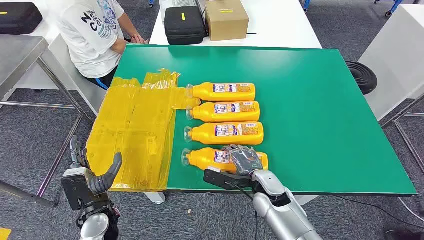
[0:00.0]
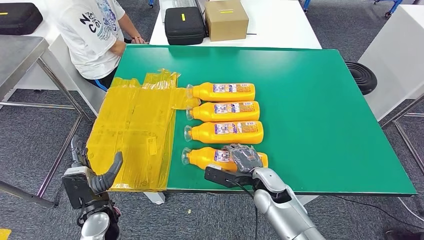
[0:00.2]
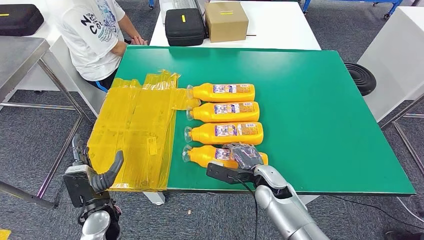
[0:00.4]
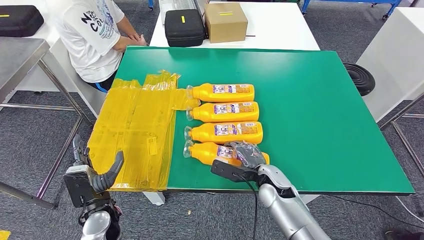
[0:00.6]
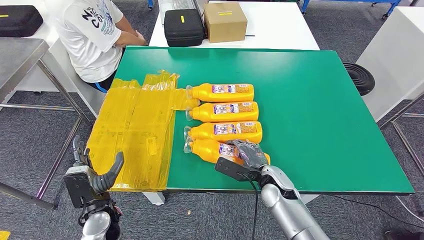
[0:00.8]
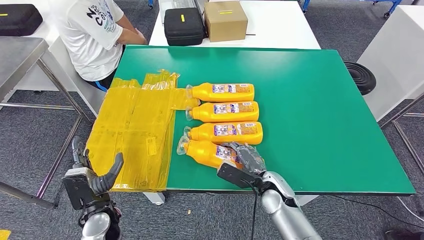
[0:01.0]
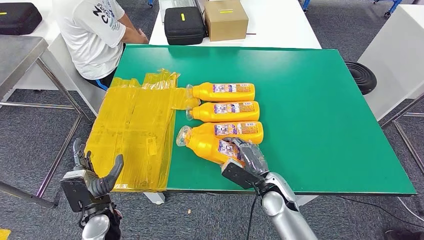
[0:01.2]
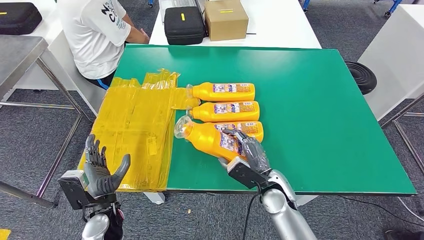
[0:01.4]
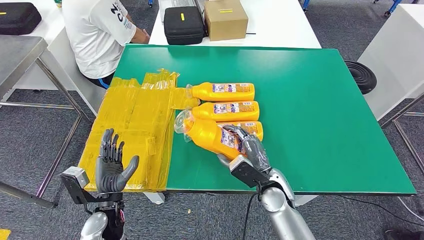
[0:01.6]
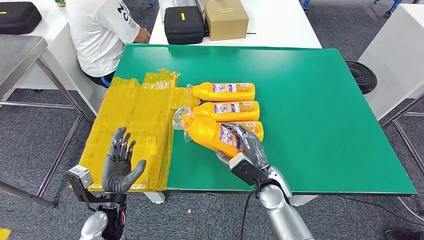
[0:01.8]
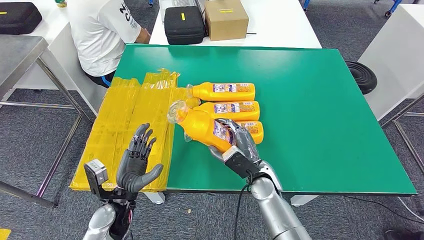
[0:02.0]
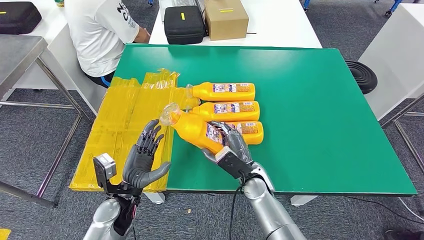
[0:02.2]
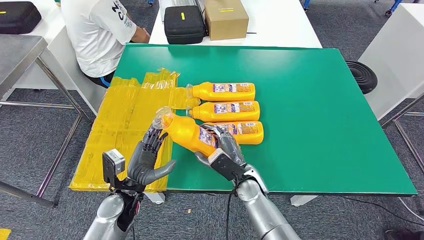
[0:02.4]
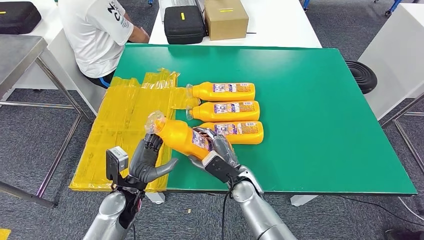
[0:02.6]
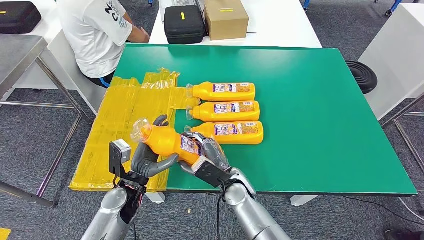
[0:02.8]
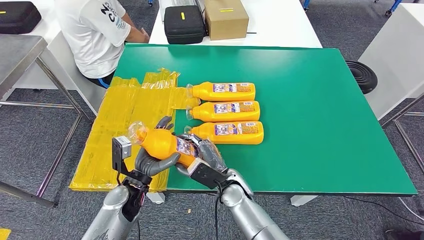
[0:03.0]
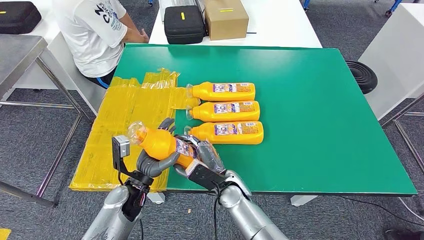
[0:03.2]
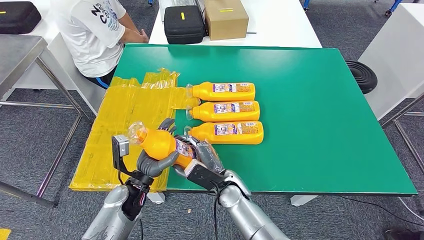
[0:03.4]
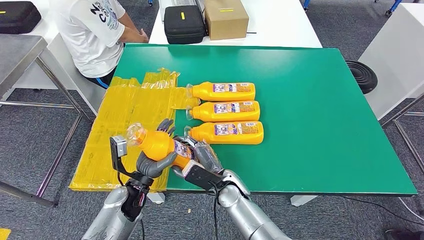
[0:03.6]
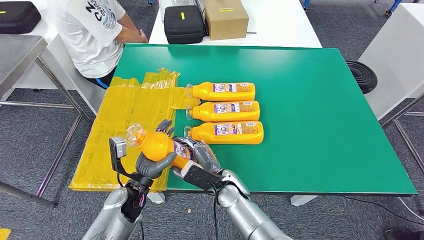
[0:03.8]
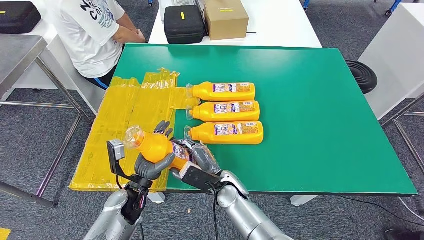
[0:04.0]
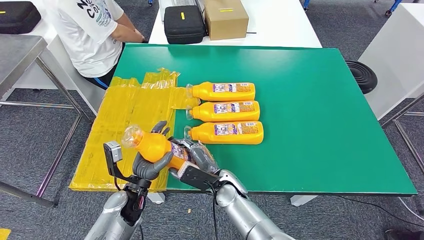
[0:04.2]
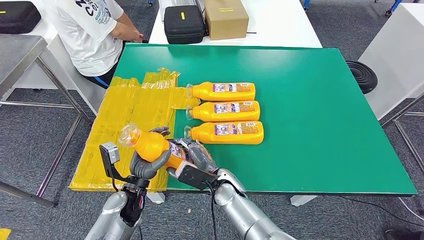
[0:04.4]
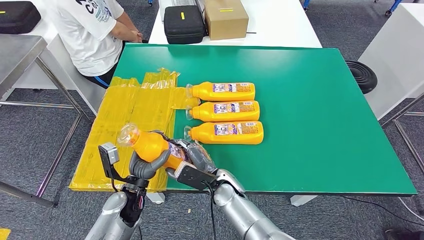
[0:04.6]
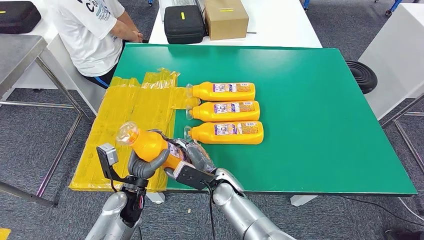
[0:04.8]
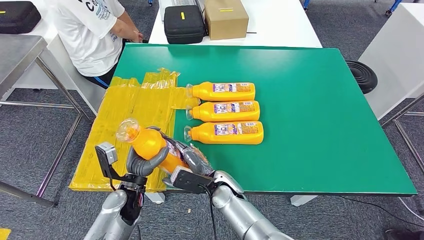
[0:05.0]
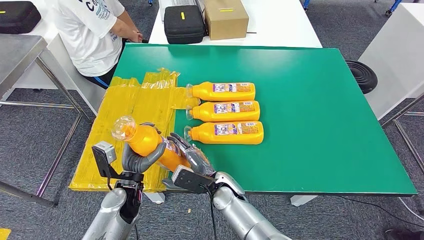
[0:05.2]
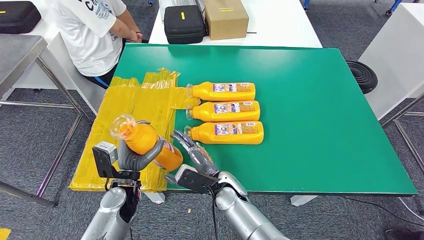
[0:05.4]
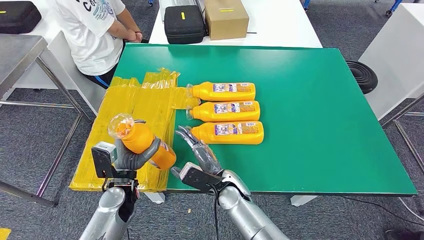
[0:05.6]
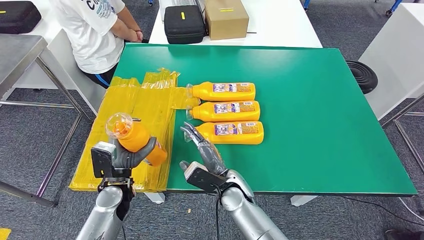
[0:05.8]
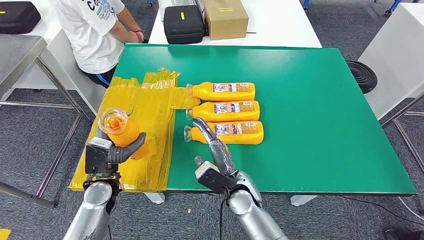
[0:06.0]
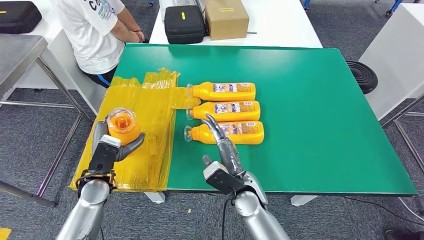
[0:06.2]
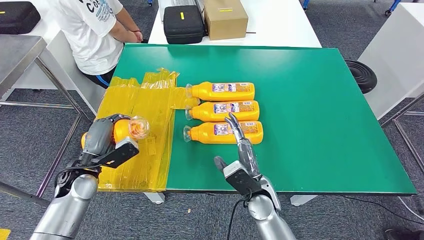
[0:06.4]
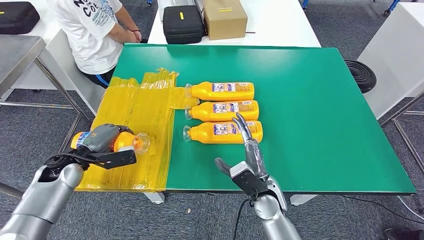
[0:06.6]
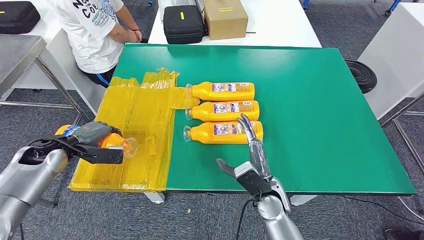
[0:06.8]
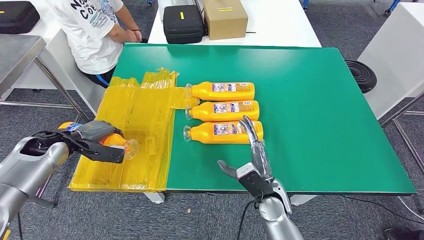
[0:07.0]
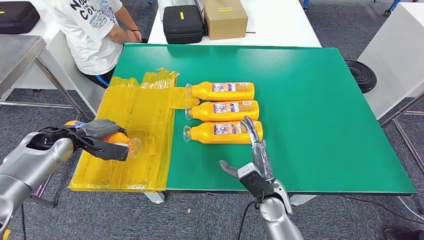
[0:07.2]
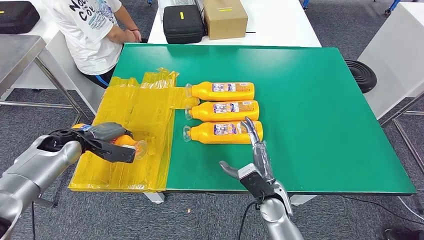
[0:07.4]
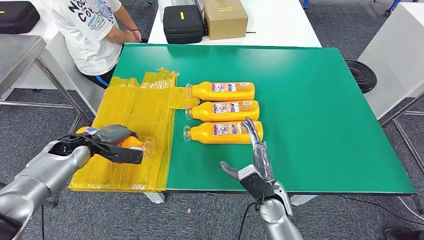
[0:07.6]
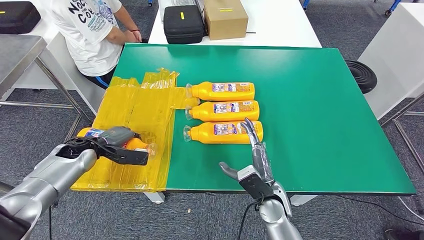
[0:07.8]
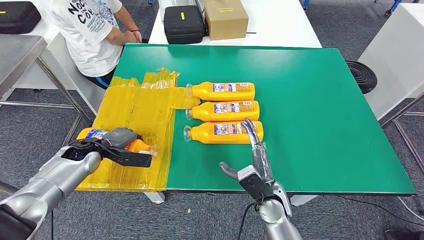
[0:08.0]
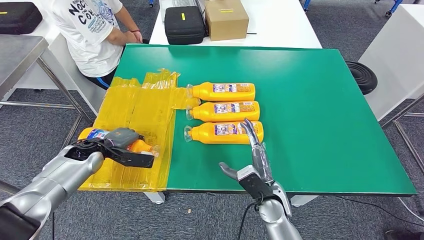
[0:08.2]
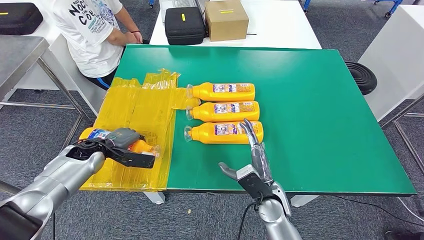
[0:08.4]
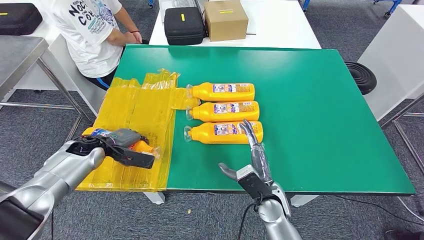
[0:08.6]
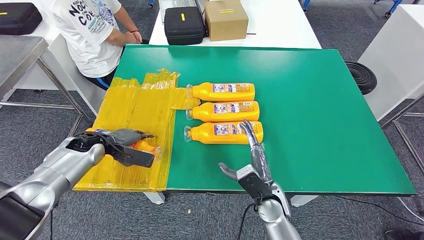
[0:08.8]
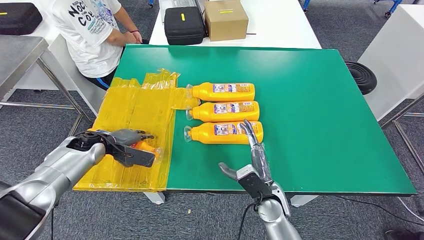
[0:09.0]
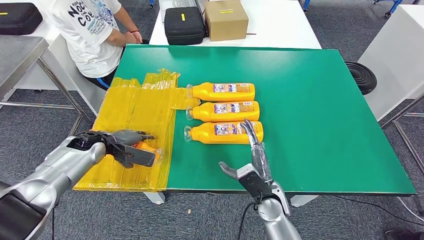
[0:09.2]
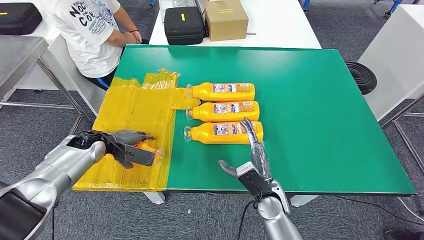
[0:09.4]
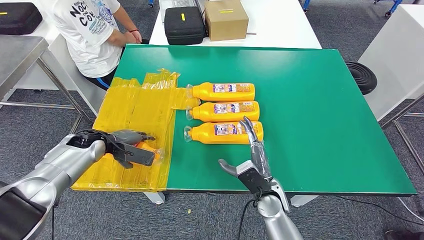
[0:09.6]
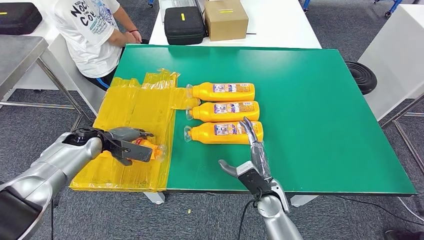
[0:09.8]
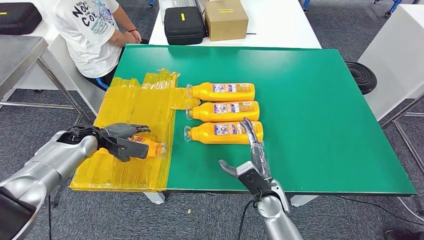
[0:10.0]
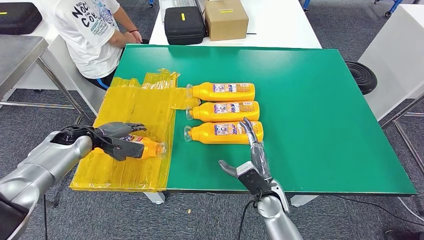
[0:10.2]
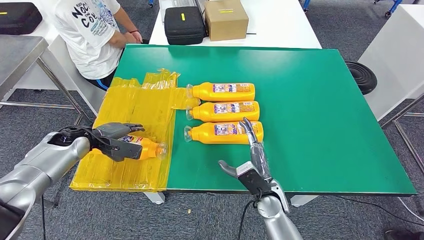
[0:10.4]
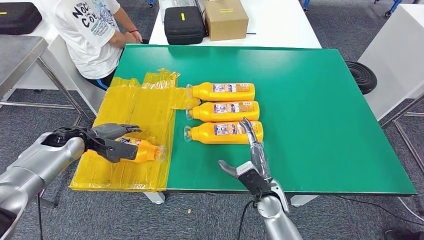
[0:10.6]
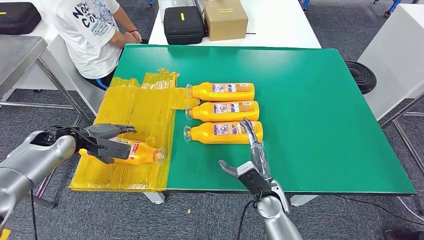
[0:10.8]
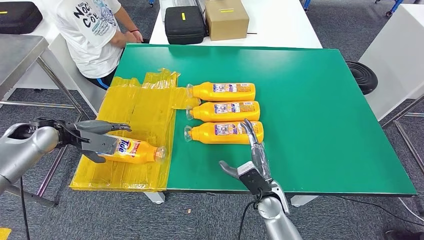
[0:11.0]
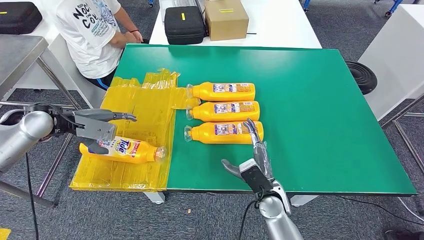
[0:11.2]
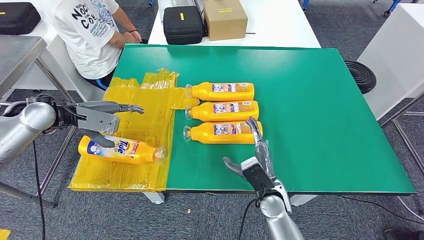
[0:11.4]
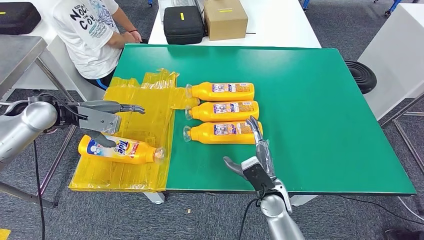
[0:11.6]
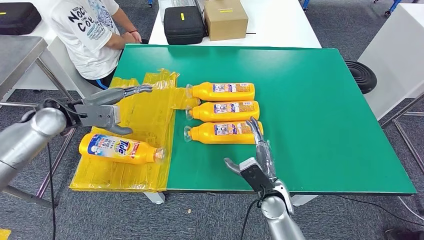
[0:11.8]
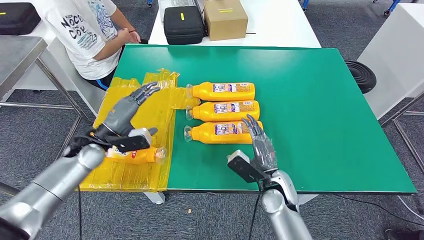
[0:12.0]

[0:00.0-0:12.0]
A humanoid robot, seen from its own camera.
Step, 0:00.0 to 0:03.0: Take the fast-moving consumer goods bottle from the table.
Step, 0:03.2 to 0:09.0: Flip the fast-moving consumer goods bottle to the front side.
0:01.6 to 0:03.0: The right hand is displaced to the left by roughly 10 cm; the left hand shifts roughly 5 cm forward.
0:03.0 to 0:04.4: The hands move only a little.
0:04.4 to 0:06.0: The left hand heads to the left, covering some 5 cm.
0:06.0 to 0:07.6: The right hand travels to the right by some 10 cm. The left hand travels to the left and forward by some 15 cm.
0:07.6 to 0:10.4: The hands stay close to where they were, moving slightly.
0:10.4 to 0:12.0: The left hand goes approximately 5 cm to the right, and goes upward and returns, approximately 10 cm each way.

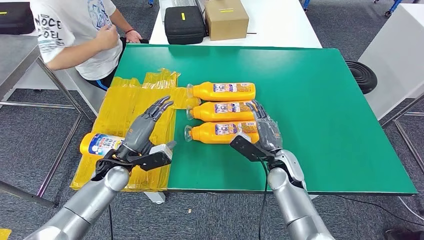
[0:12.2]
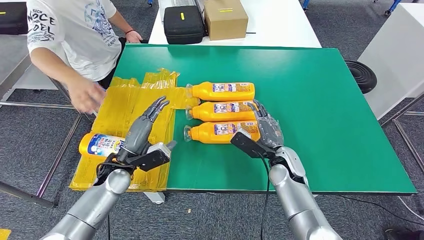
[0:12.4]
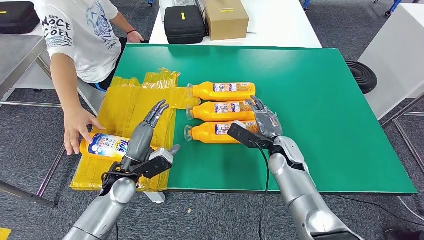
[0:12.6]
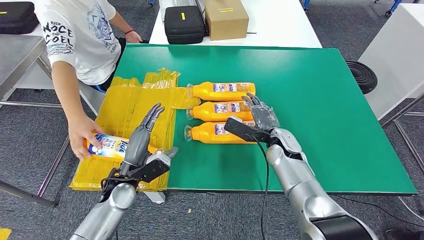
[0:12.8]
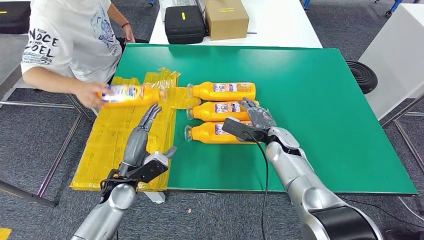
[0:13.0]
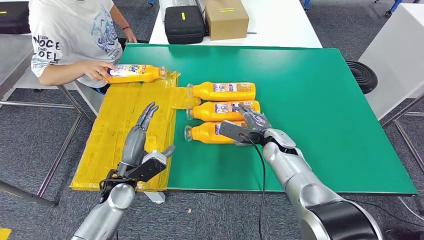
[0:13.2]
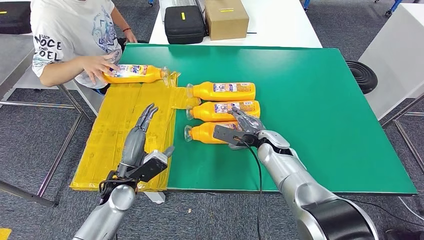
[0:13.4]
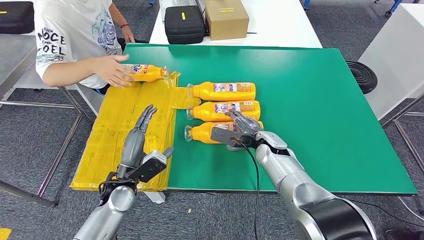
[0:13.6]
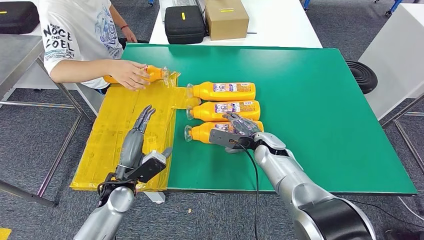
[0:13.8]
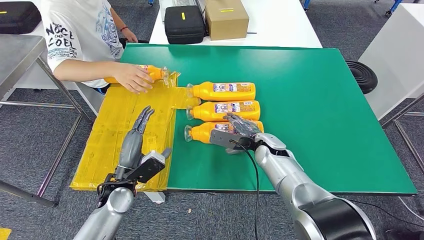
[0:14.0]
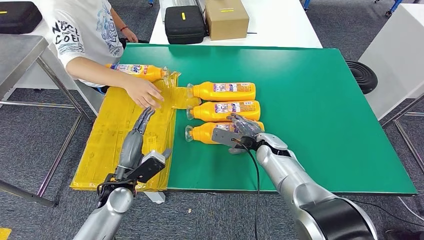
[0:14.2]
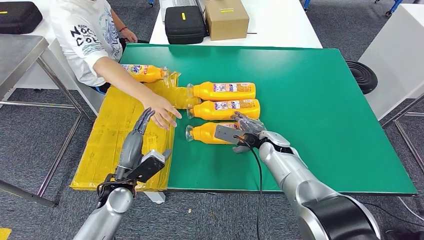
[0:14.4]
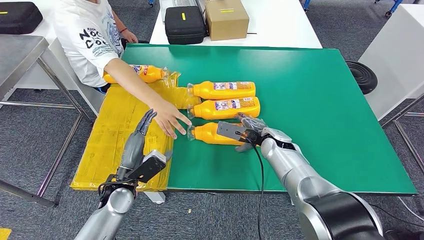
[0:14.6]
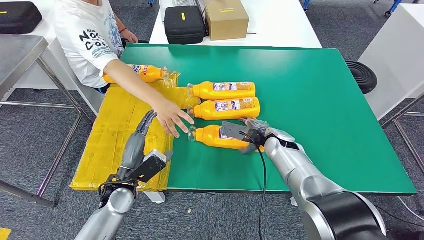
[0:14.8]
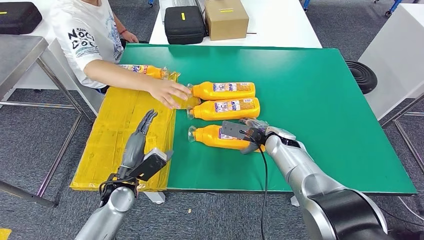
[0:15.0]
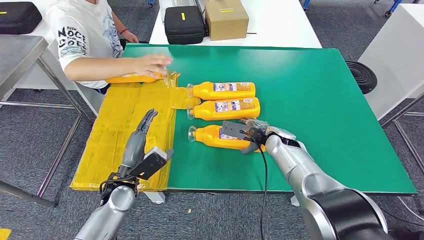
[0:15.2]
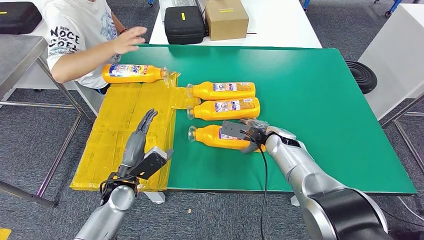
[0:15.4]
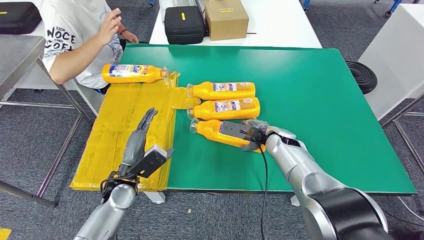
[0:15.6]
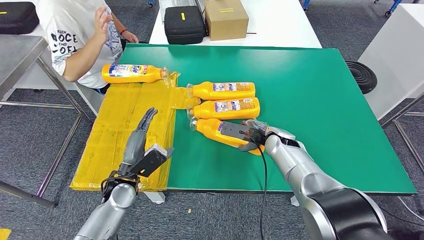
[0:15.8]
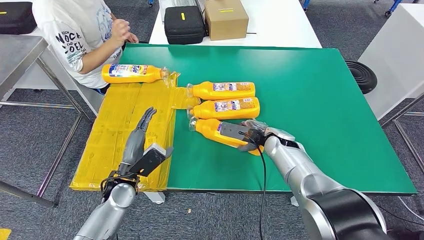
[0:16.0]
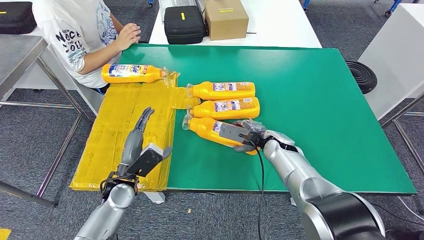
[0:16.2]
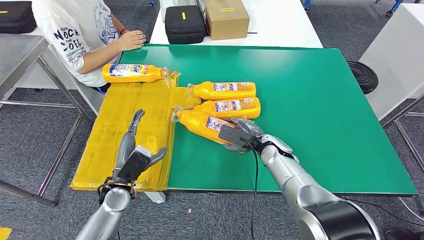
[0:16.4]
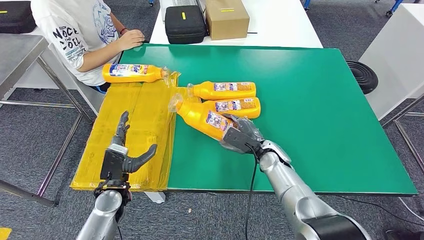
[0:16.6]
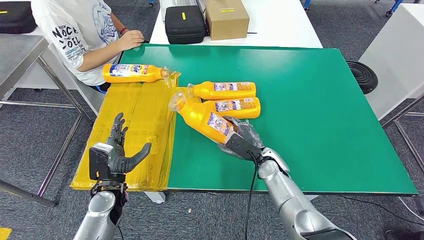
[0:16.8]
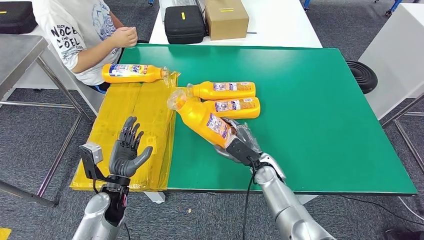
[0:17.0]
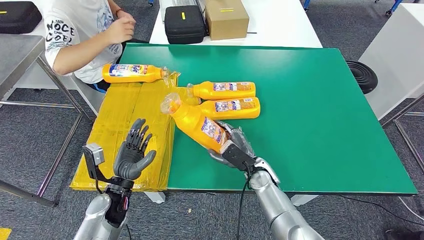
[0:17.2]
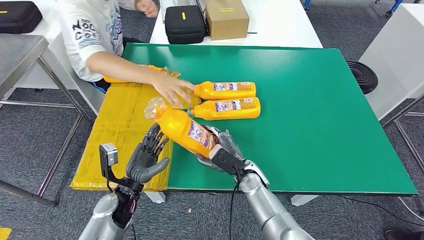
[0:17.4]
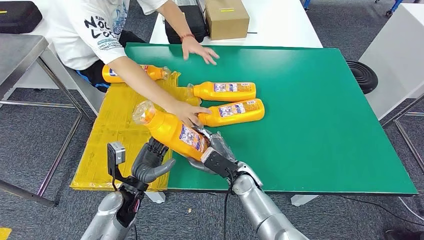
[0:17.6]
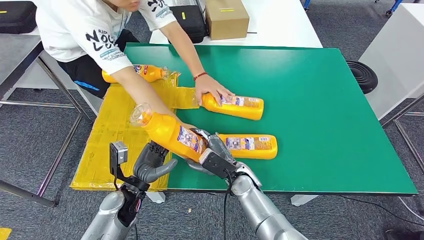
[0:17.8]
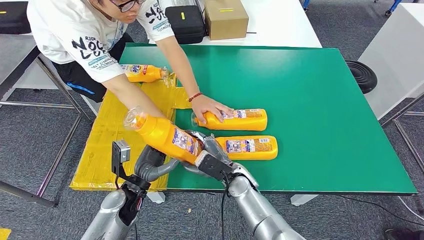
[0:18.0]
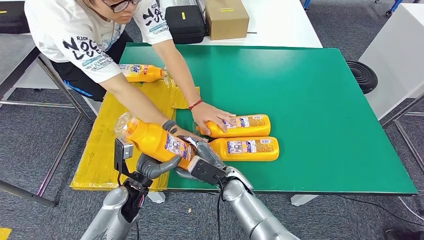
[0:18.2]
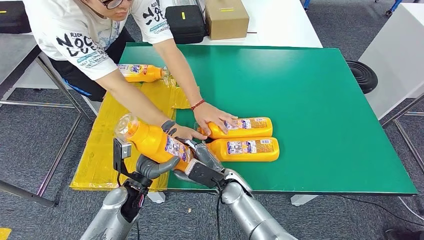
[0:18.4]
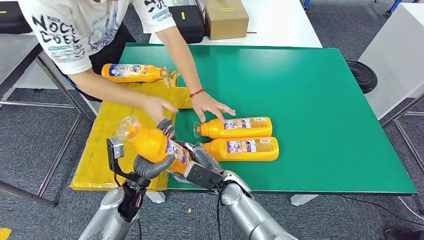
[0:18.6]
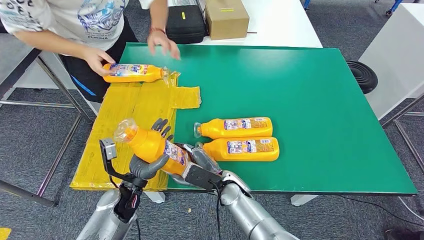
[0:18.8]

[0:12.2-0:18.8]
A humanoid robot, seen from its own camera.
Step, 0:12.2 to 0:17.6: Pick up the fast-moving consumer goods bottle from the table.
0:12.2 to 0:13.8: The left hand heads backward, covering approximately 5 cm, while the right hand goes some 5 cm forward.
0:13.8 to 0:15.4: The hands make only small movements.
0:15.4 to 0:17.2: The right hand travels backward, to the left and downward by about 10 cm.
